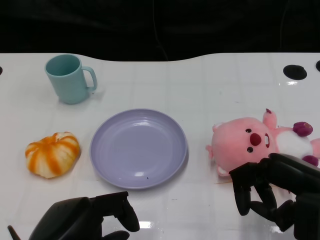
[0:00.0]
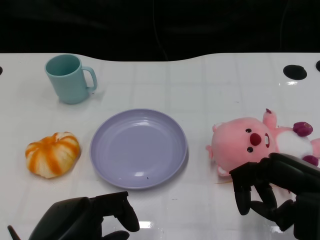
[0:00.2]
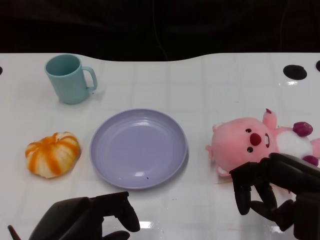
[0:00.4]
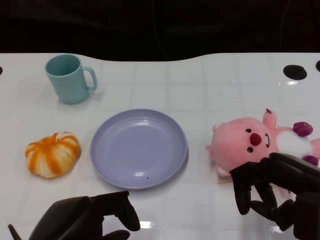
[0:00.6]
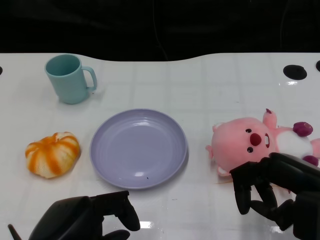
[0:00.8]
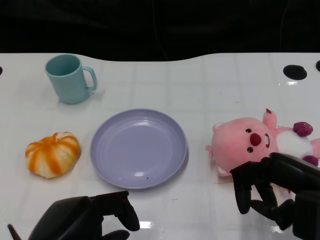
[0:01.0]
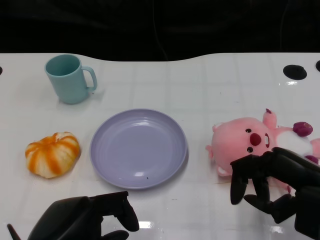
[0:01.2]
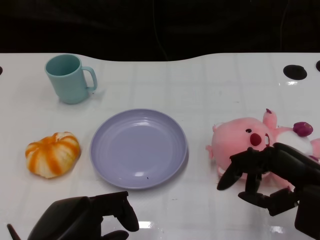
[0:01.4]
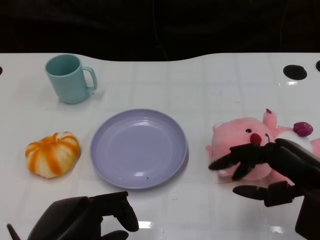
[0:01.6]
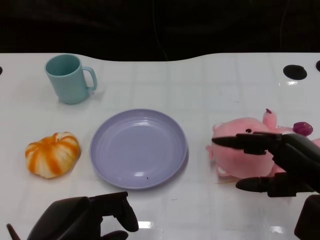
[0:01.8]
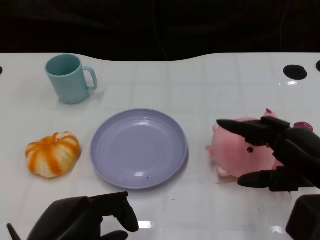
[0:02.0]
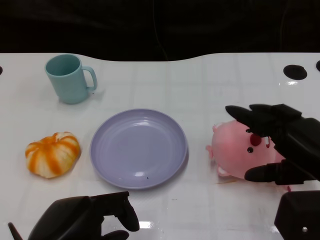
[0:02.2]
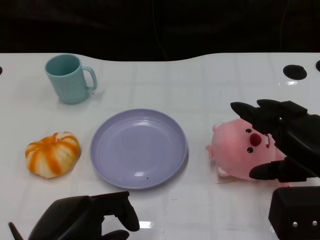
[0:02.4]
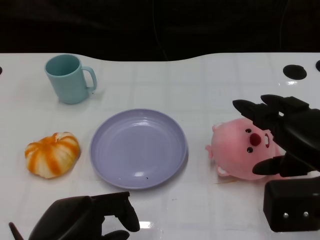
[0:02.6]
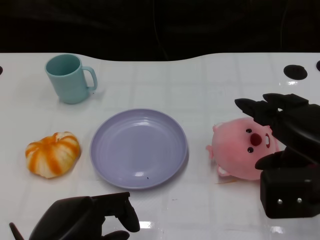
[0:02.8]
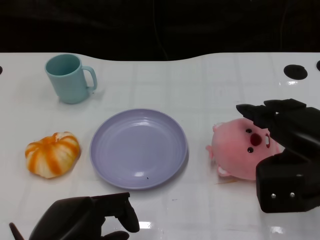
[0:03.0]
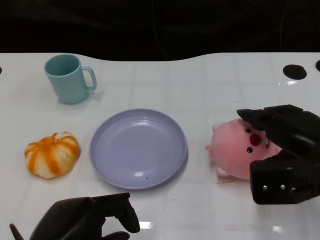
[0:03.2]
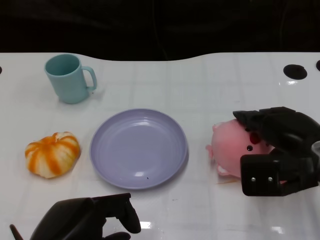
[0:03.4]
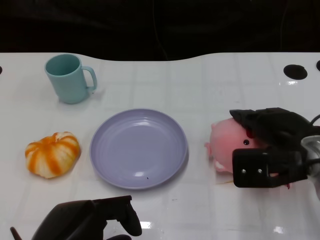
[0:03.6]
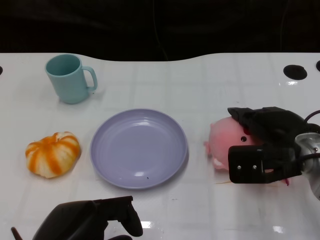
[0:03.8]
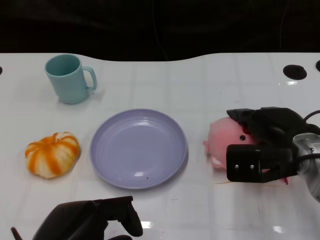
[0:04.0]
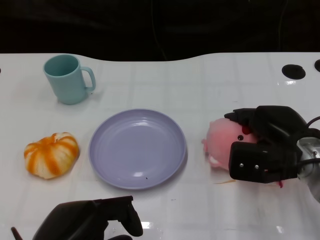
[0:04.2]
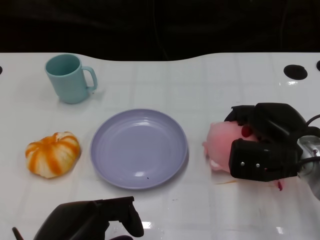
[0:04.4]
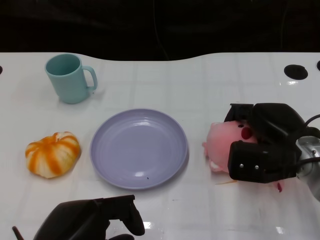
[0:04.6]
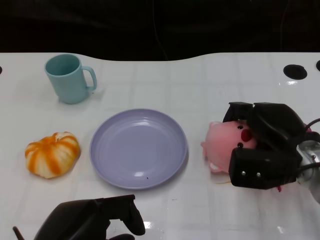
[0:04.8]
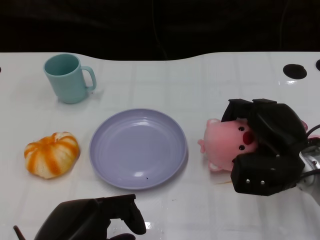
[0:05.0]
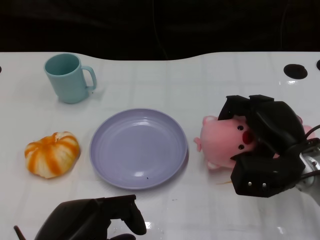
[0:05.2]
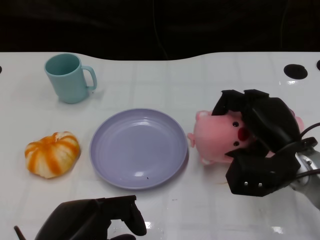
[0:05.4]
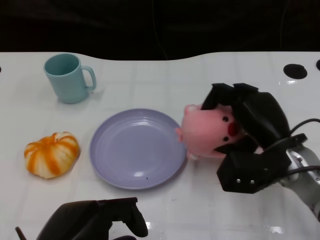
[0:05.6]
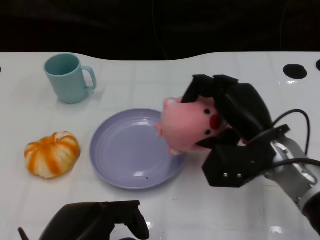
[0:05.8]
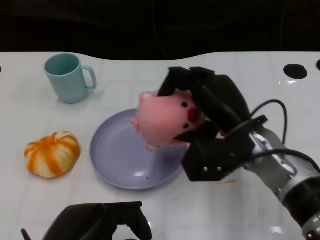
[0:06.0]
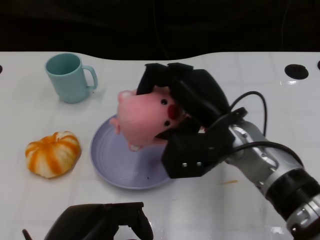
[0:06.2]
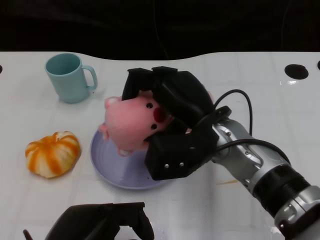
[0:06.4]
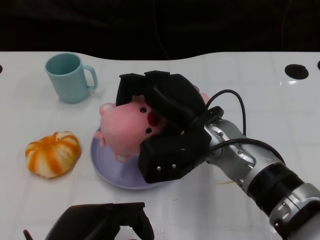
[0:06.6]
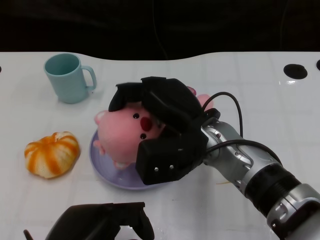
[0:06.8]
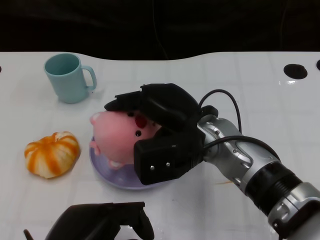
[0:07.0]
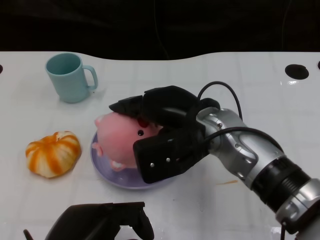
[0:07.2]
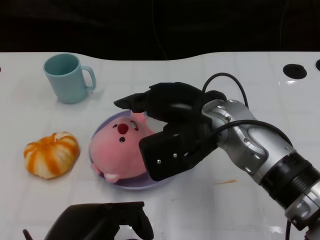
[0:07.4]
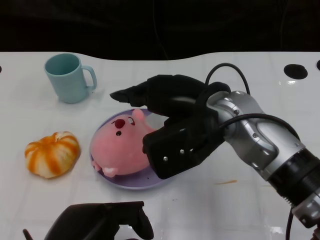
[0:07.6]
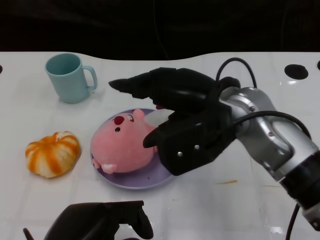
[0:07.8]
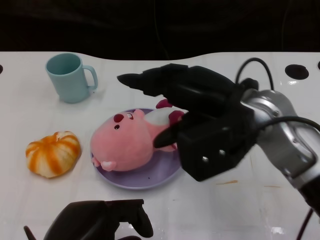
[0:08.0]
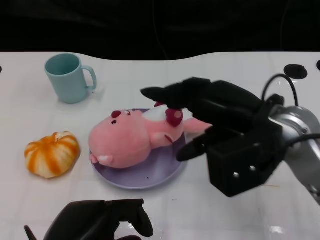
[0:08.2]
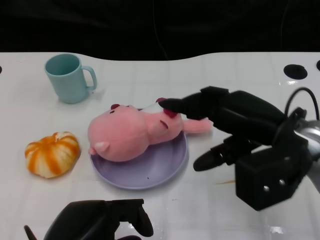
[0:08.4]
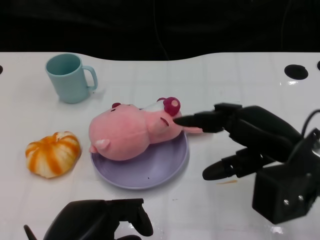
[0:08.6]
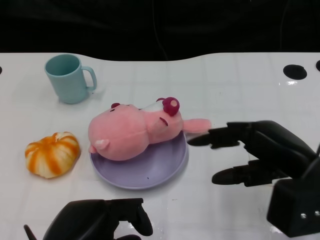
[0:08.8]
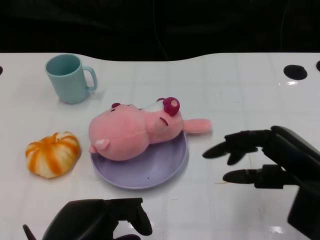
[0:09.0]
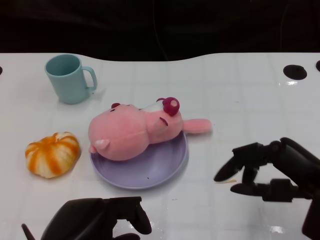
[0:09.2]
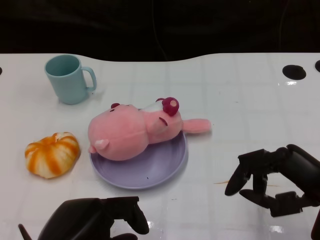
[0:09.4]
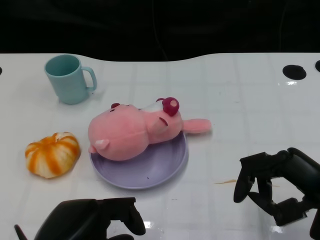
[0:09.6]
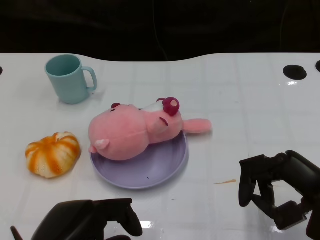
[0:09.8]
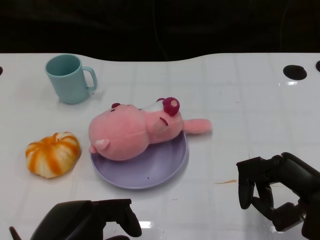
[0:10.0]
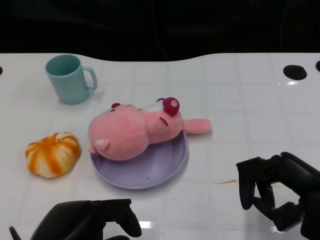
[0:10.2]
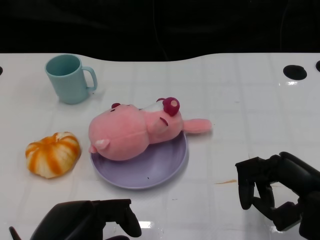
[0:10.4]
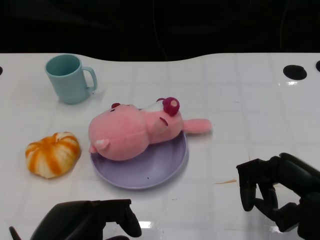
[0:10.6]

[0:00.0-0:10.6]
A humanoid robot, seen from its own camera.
Task of the whole recording: Pick up the doll on the other side of the plate and place it into the plate.
Step, 1.0 to 5.4 s: Grasp the pink doll with the right gripper.
Step, 5.8 to 8.0 s: Place the pink doll into the plate with the right gripper.
3.0 to 4.6 s: The right hand heads downward and forward, covering about 10 cm.
4.6 to 6.0 s: The right hand is displaced to the left by some 10 cm.
6.0 to 7.6 s: The right hand shifts about 5 cm upward.
7.6 to 9.0 s: The right hand heads to the right and backward, covering roughly 15 cm.
9.0 to 10.6 s: The hands stay close to where they were, moving slightly.

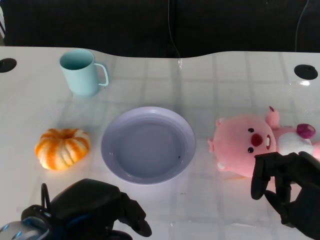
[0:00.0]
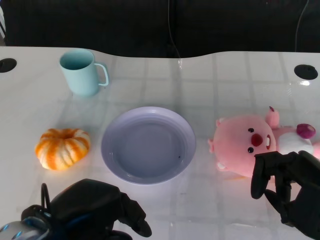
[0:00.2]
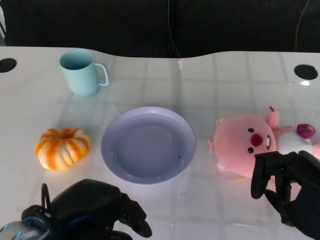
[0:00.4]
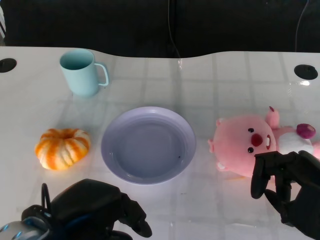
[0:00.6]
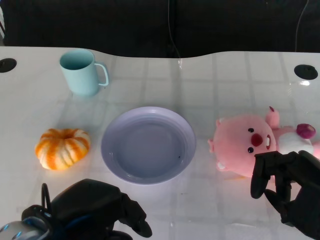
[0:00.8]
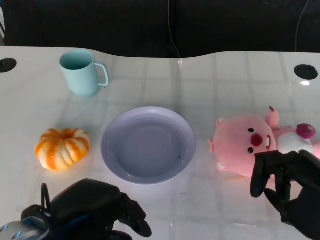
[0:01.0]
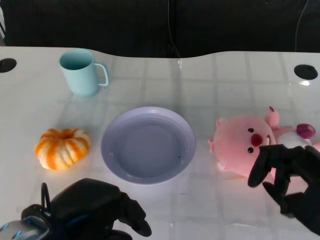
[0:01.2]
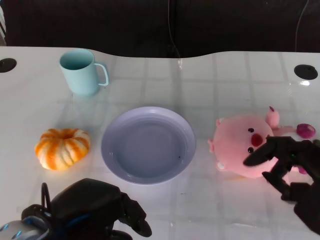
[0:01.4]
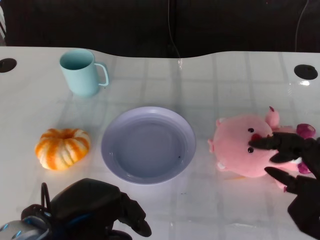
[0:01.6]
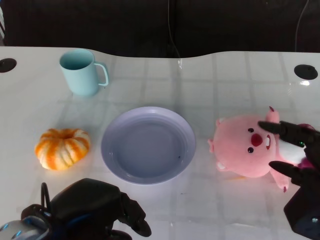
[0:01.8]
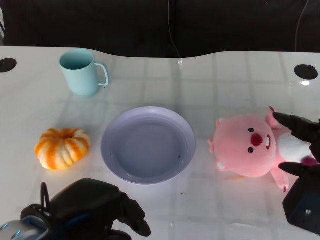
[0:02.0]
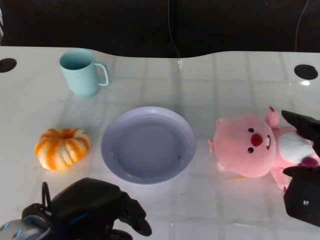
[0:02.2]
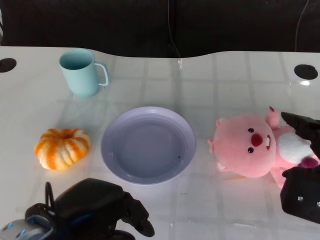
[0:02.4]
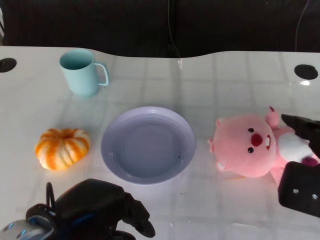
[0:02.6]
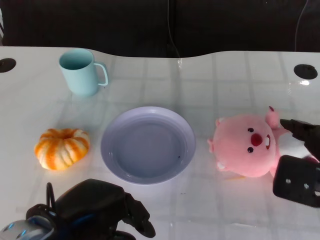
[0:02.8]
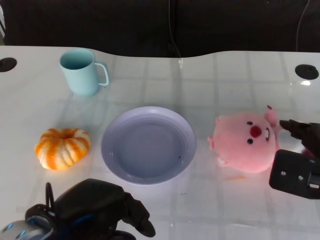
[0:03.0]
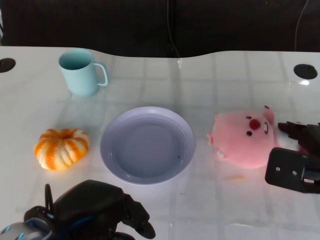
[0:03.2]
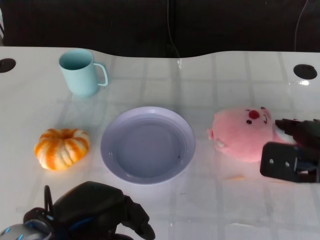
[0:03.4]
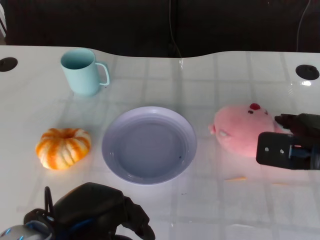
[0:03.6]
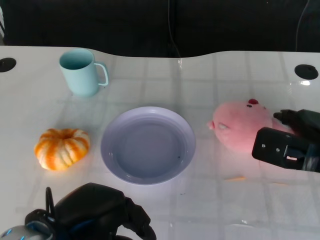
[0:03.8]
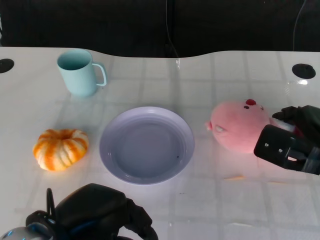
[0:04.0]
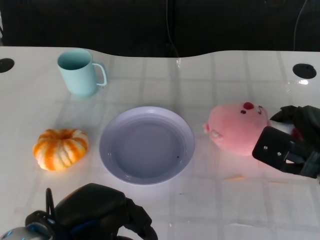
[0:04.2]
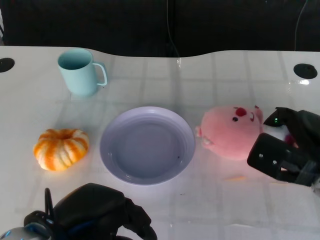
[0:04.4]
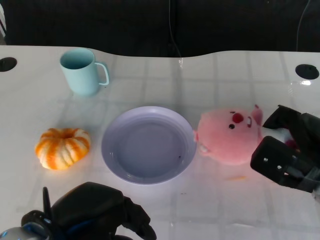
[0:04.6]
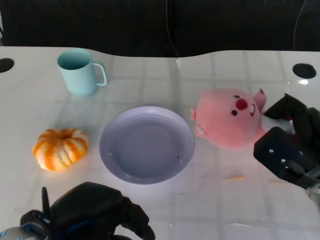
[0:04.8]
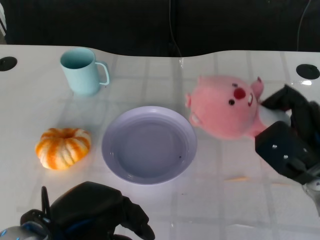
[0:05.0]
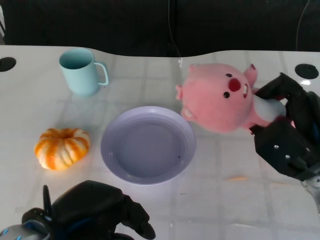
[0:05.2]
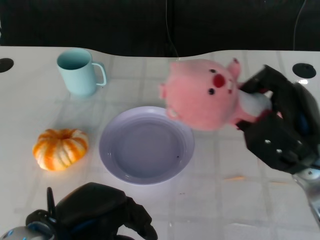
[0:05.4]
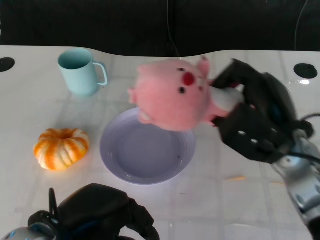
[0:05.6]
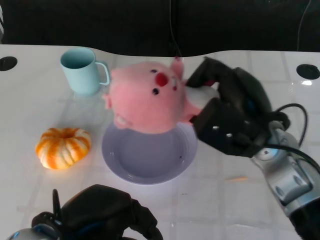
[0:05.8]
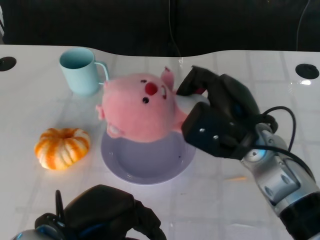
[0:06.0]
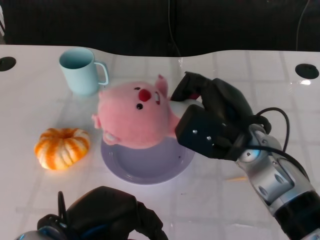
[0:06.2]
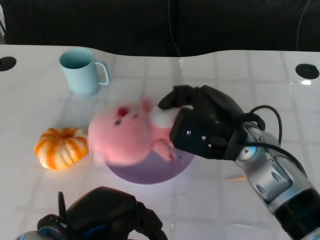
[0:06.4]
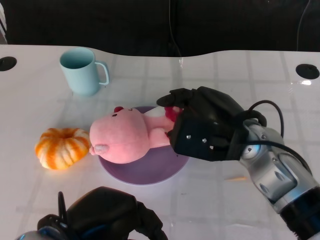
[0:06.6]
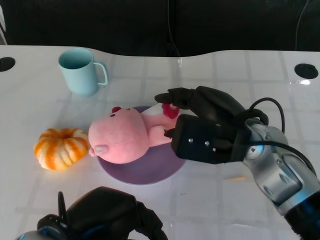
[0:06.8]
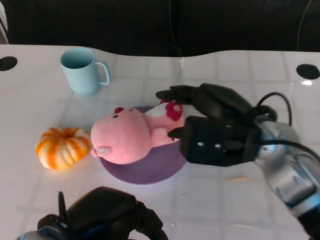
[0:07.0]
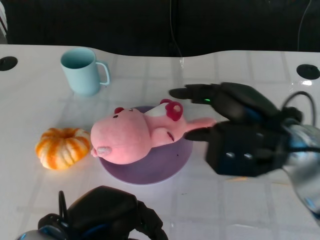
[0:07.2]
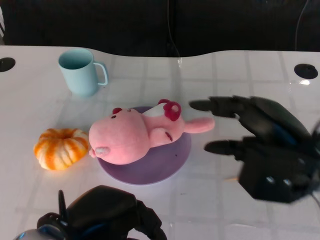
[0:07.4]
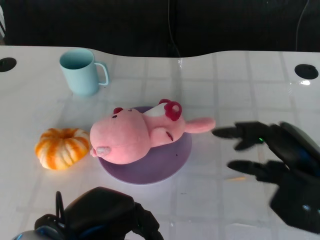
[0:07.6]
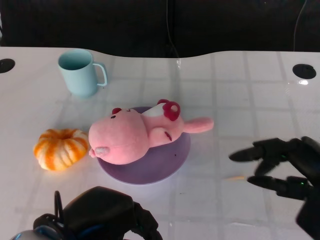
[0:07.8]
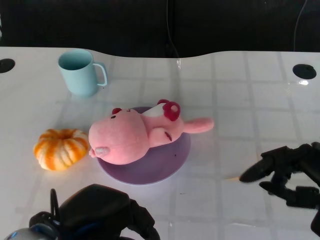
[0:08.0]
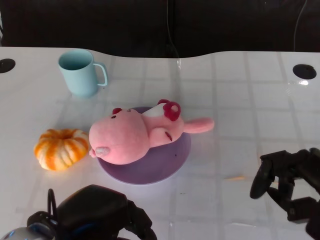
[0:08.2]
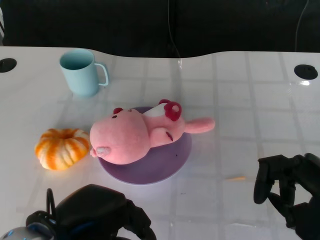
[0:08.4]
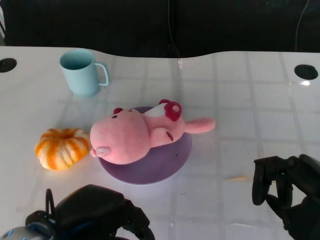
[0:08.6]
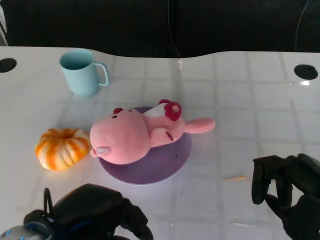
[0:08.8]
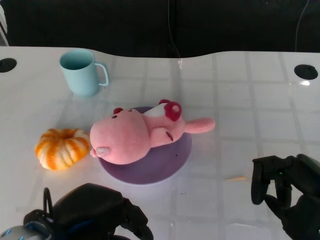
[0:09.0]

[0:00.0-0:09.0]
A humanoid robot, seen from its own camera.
Task of the whole recording: Pick up the doll on the other side of the plate and place it into the plate.
Step, 1.2 to 5.6 s: Grasp the pink doll with the right gripper.
Step, 5.8 to 7.2 s: Place the pink doll into the plate with the right gripper.
1.6 to 3.0 s: The right hand goes approximately 5 cm forward.
3.0 to 4.4 s: The right hand moves roughly 5 cm.
4.4 to 6.0 s: The right hand moves to the left and upward, some 10 cm.
6.0 to 7.6 s: The right hand goes approximately 15 cm to the right and backward.
7.6 to 9.0 s: There are only small adjustments of the hands.

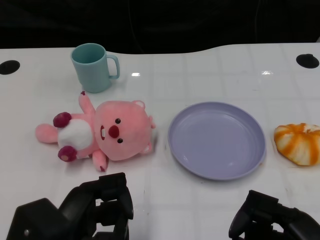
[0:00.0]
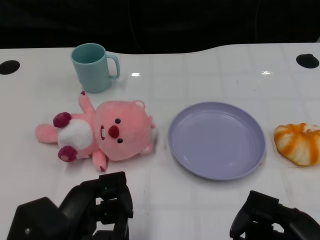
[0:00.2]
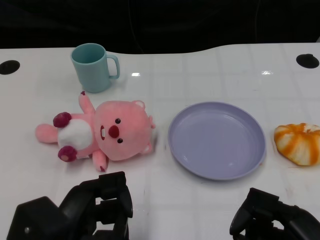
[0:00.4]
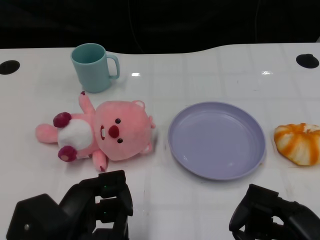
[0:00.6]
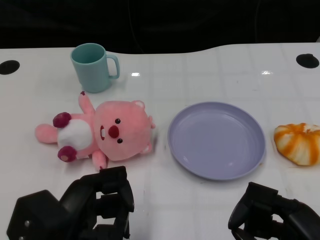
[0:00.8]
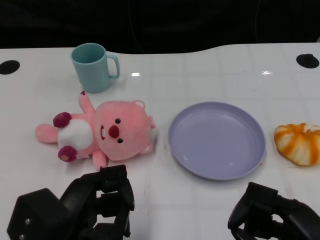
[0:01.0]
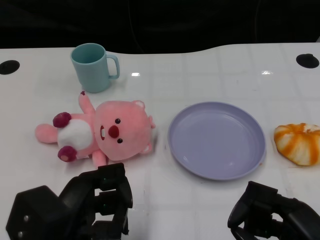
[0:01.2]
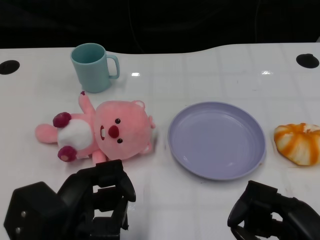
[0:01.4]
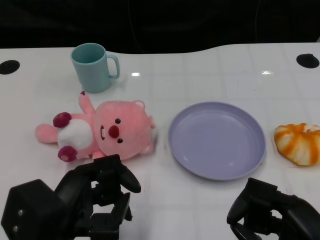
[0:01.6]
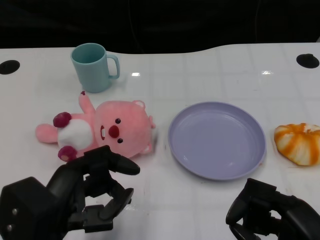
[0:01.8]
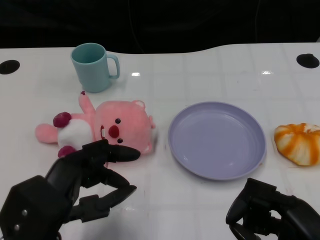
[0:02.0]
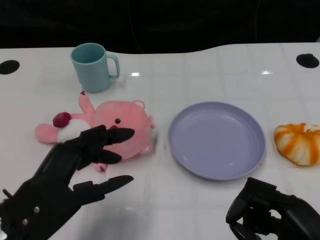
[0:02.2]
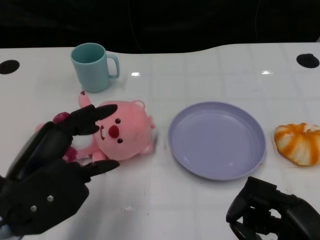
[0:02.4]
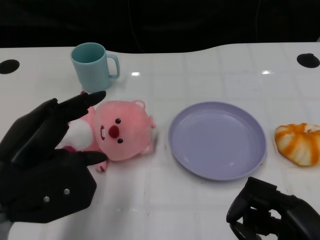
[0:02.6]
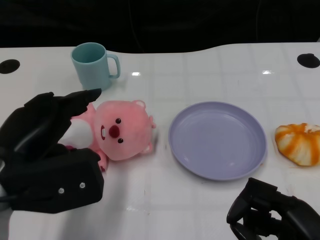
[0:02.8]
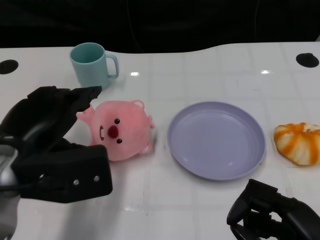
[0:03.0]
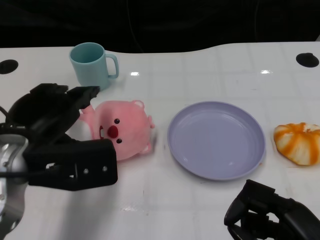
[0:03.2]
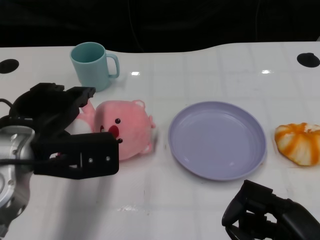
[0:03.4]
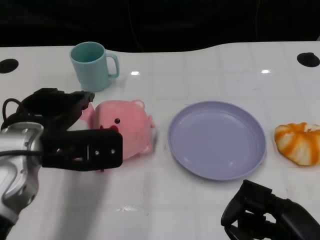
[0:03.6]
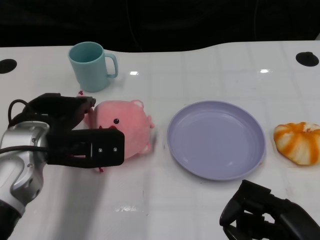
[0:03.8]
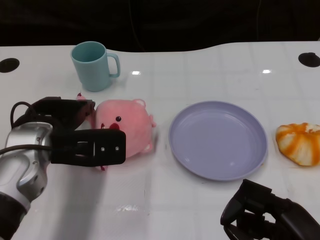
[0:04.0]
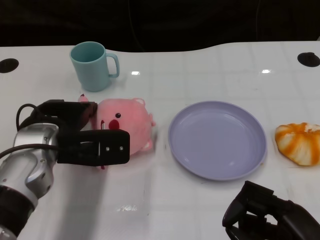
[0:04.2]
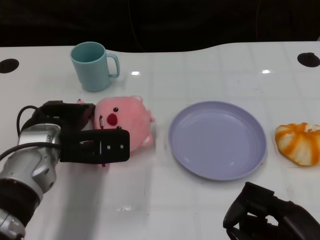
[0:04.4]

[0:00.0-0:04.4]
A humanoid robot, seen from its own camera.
Task of the whole recording: Pick up the doll on one side of the plate and place it into the plate.
1.4 to 3.0 s: The left hand heads upward and forward, covering about 10 cm.
3.0 to 4.4 s: The left hand moves forward and downward, approximately 10 cm.
